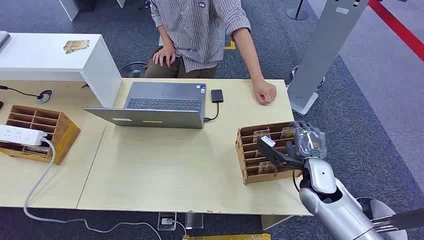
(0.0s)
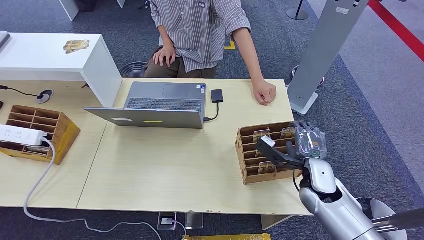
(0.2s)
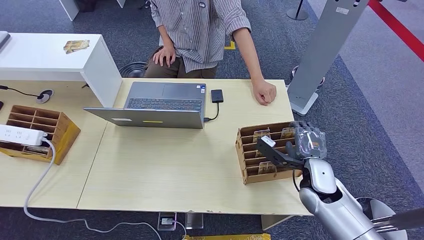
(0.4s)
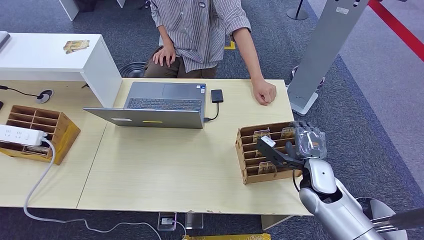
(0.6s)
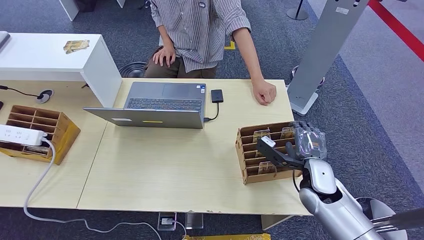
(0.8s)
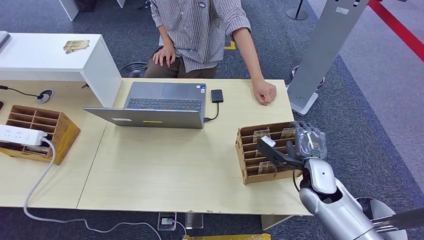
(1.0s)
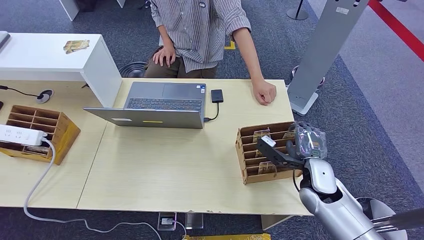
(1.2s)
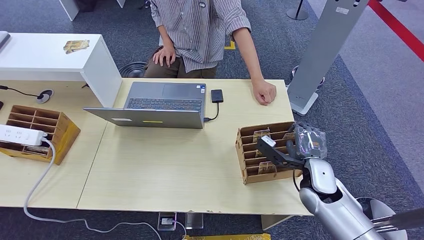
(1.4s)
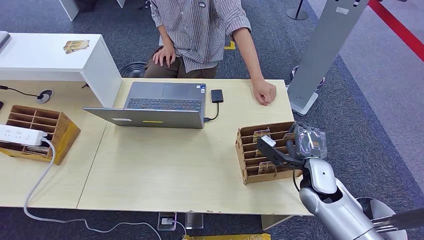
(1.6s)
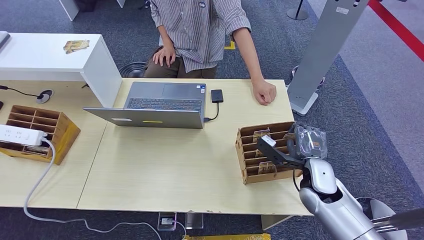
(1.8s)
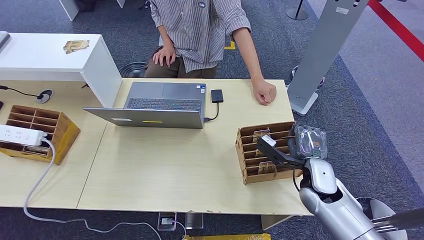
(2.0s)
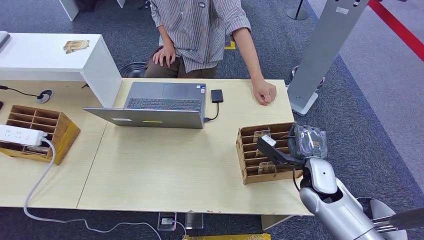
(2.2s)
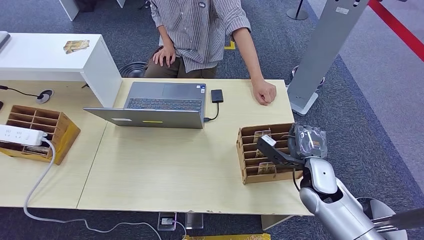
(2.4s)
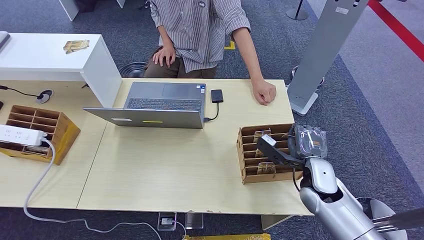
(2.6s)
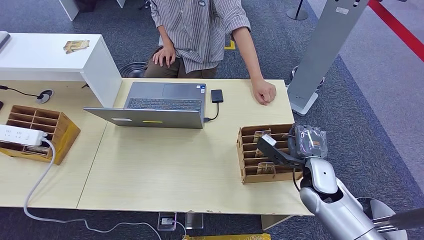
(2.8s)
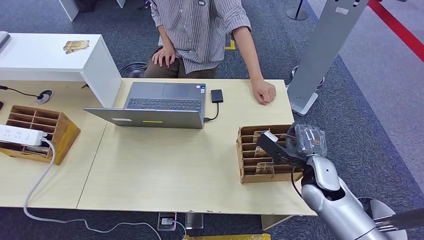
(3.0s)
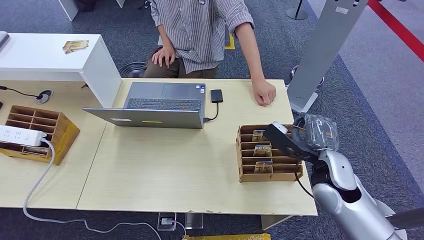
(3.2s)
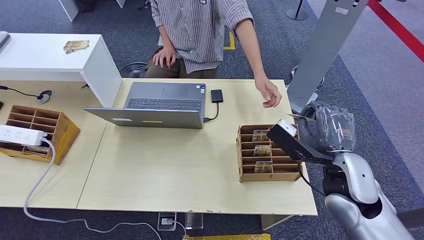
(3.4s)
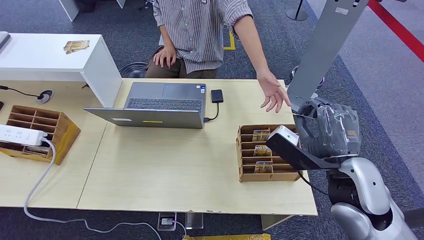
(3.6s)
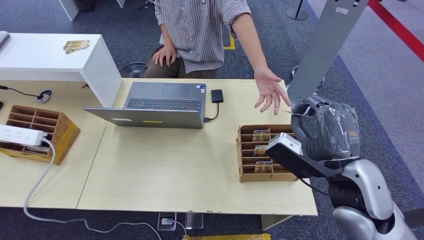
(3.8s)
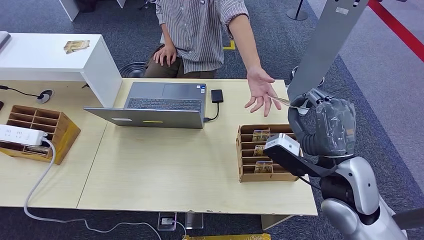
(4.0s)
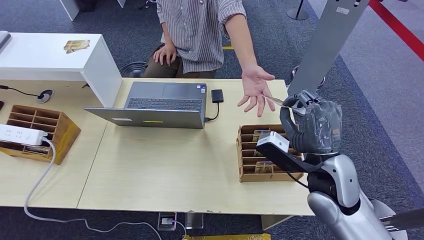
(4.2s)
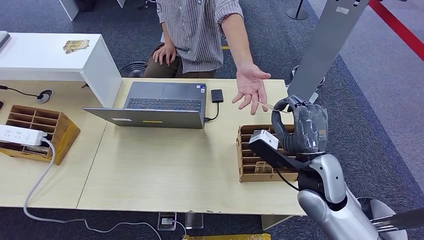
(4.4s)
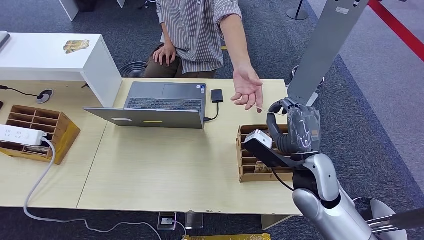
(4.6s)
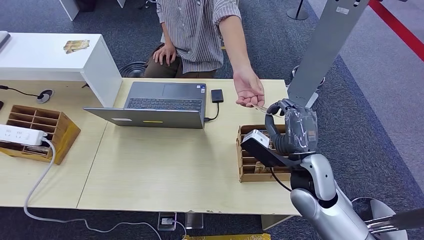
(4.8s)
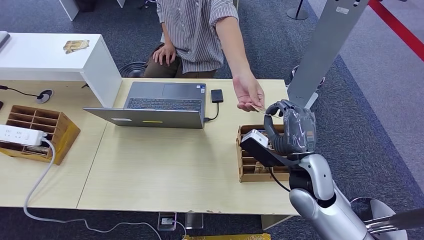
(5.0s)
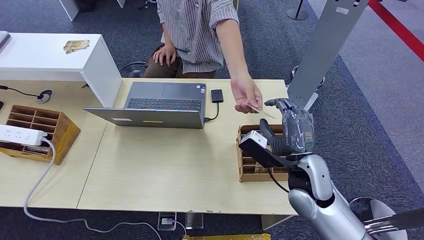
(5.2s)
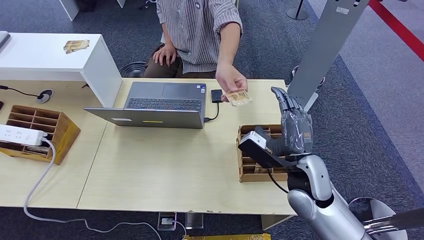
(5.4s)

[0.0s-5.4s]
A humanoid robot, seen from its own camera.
Step, 0.0s to 3.2s: Pick up the room card from the card holder.
Step, 4.0s to 5.4s: Hand the room card to the target.
1.4s to 2.8s: The two hands keep their place.
2.8s to 4.0s: The right hand is displaced upward and backward by roughly 15 cm.
4.0s to 5.4s: The right hand heads downward, covering about 5 cm.

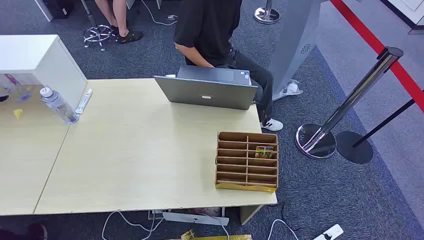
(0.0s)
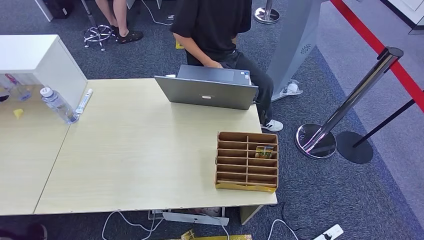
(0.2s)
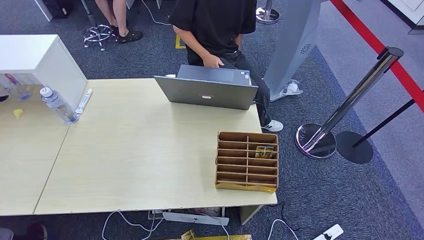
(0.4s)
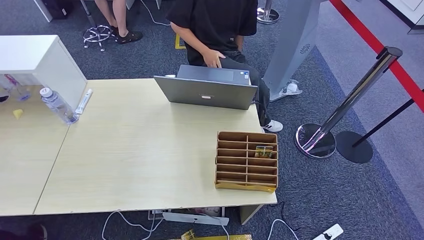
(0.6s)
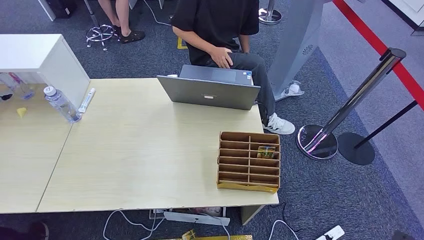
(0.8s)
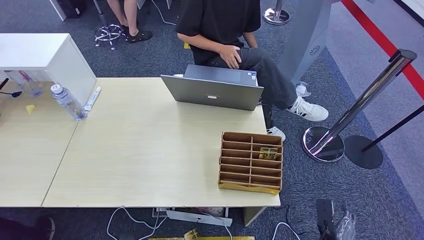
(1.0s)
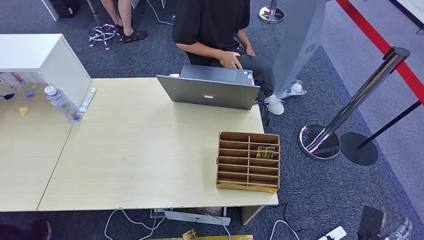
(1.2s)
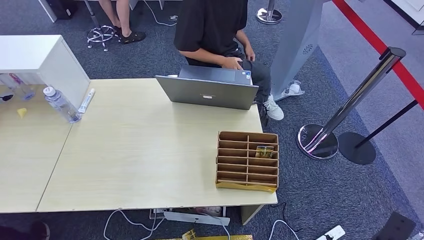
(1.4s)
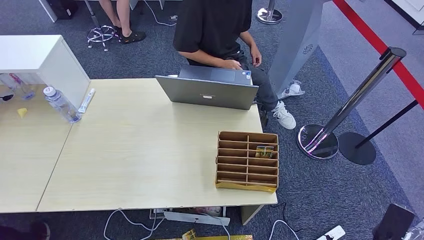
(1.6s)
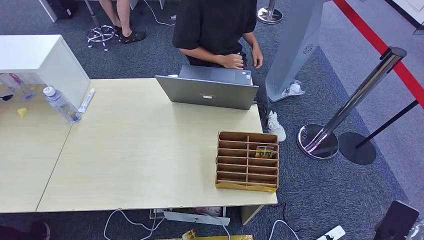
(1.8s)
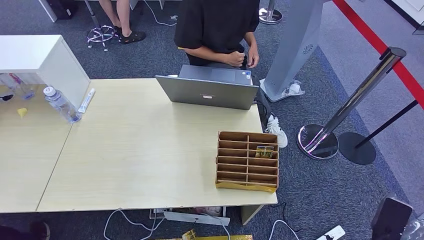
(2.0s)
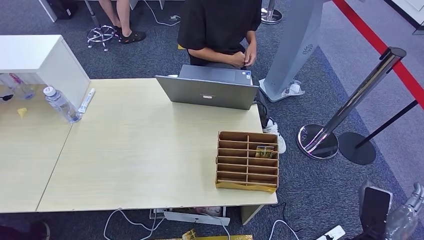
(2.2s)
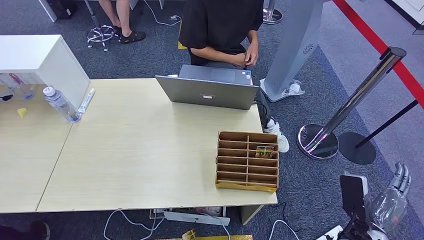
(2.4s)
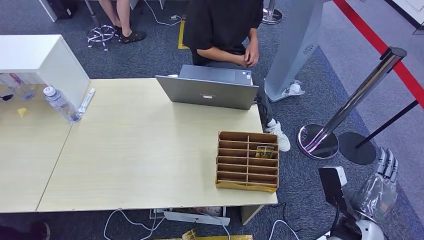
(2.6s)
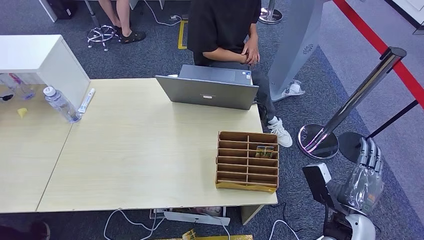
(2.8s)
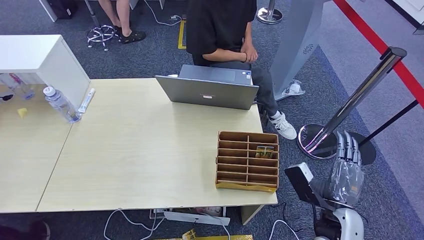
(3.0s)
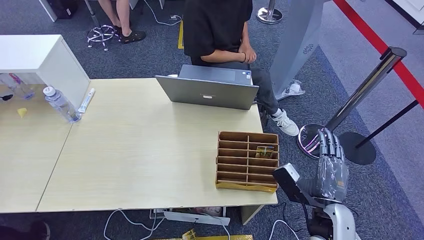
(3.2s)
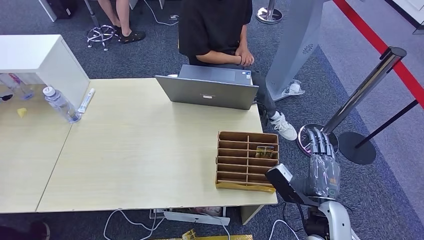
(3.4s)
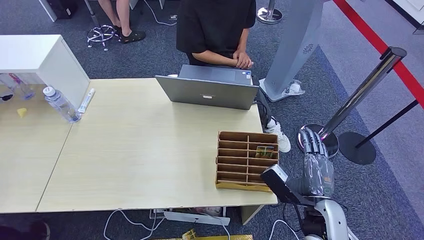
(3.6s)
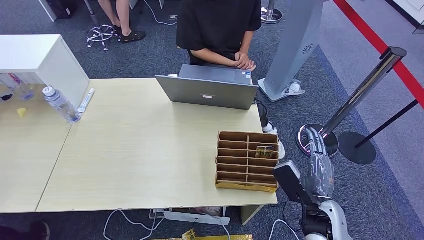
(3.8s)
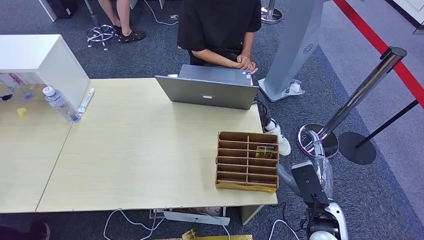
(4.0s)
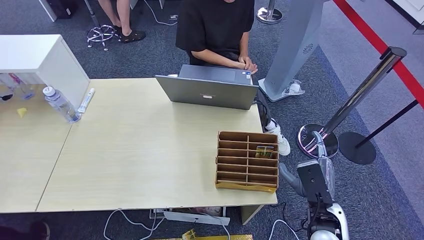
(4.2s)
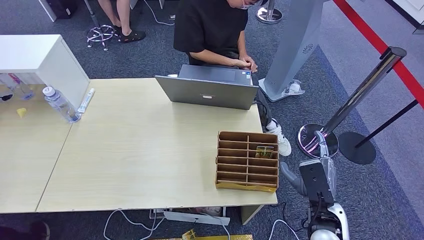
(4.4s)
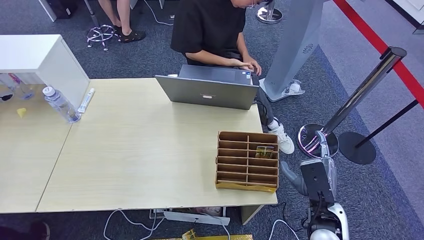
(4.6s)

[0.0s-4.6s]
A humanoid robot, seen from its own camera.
Step, 0.0s to 4.6s: Pick up the room card from the card holder.
1.6s to 3.0s: The right hand is displaced upward, to the left and forward by some 15 cm.

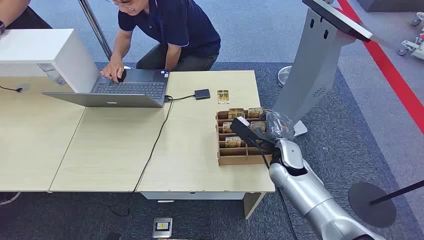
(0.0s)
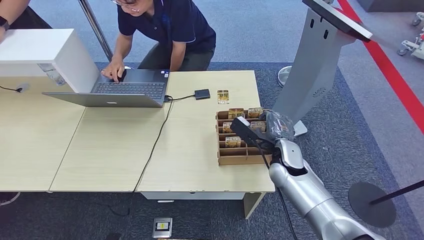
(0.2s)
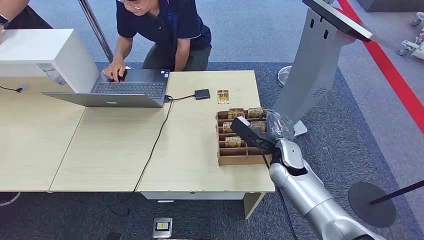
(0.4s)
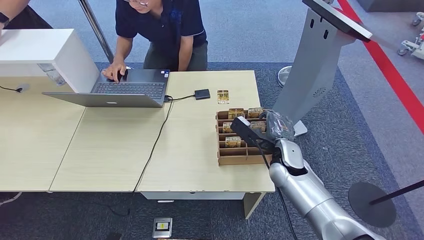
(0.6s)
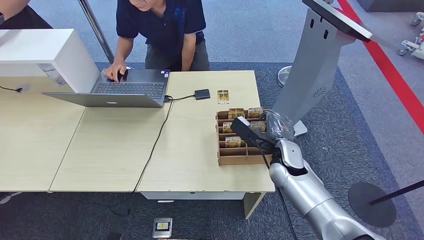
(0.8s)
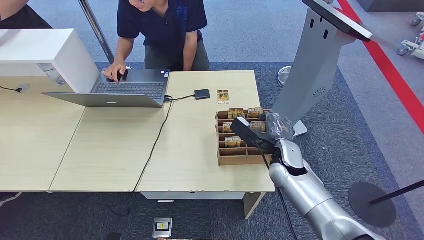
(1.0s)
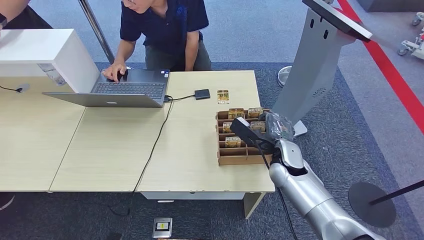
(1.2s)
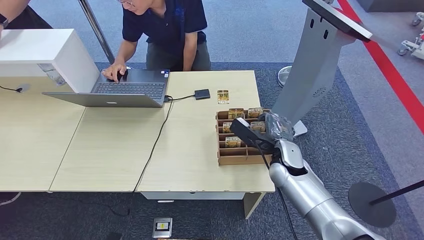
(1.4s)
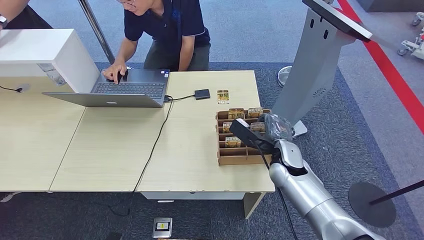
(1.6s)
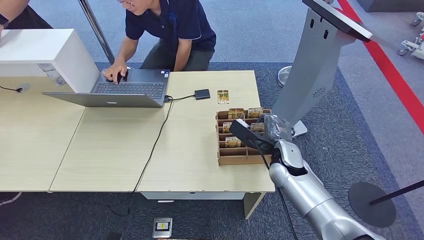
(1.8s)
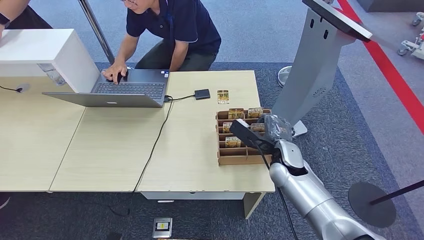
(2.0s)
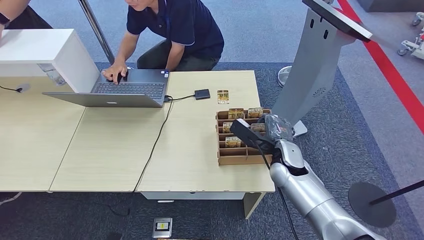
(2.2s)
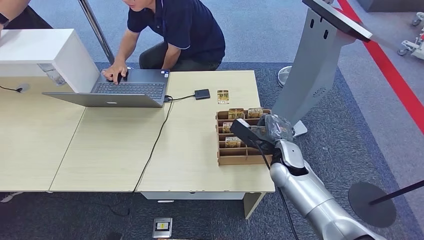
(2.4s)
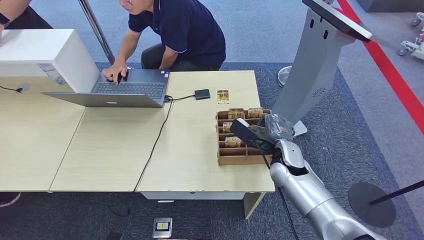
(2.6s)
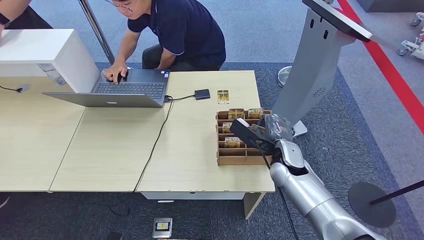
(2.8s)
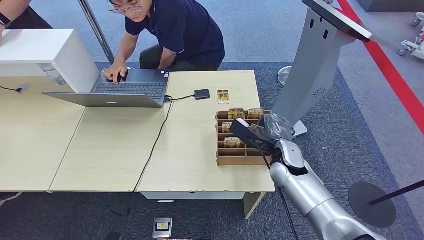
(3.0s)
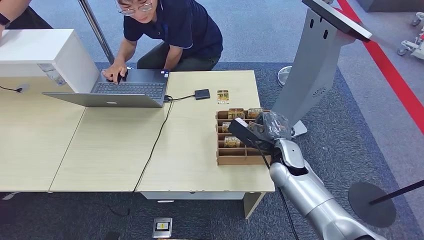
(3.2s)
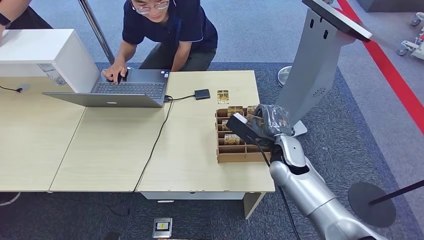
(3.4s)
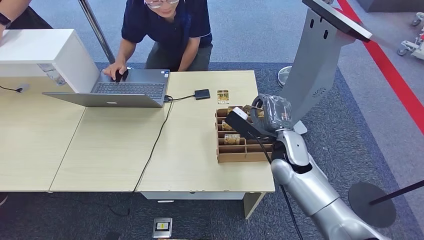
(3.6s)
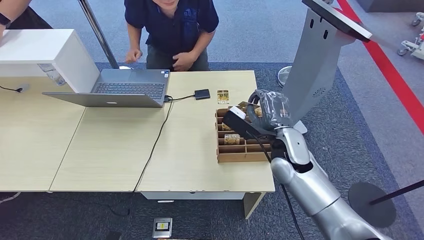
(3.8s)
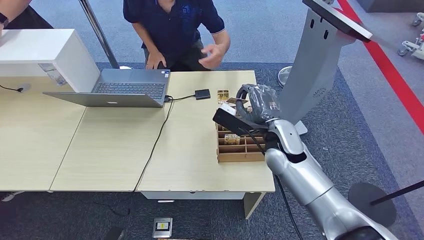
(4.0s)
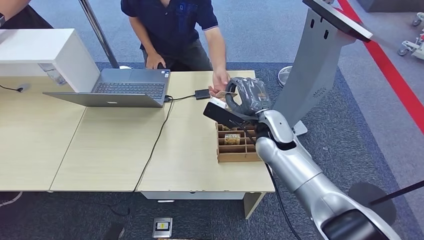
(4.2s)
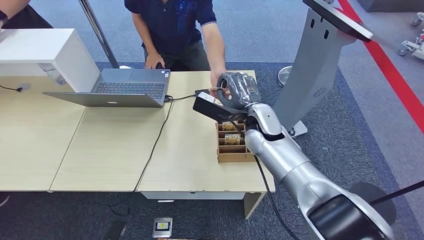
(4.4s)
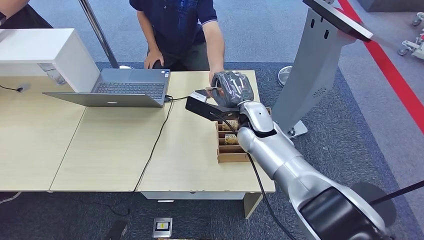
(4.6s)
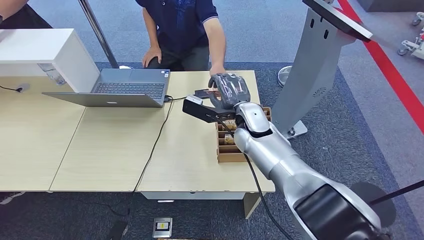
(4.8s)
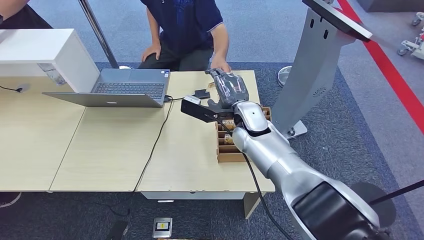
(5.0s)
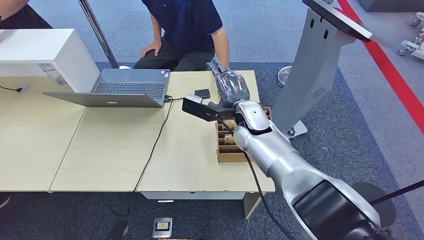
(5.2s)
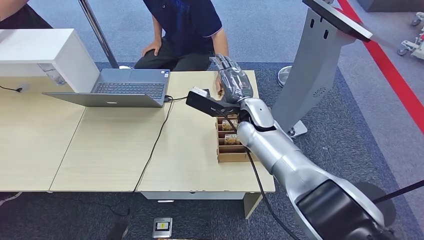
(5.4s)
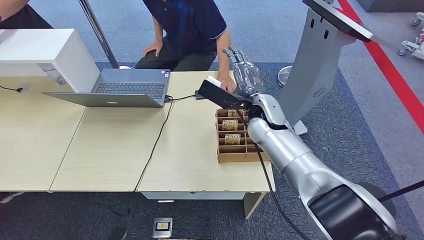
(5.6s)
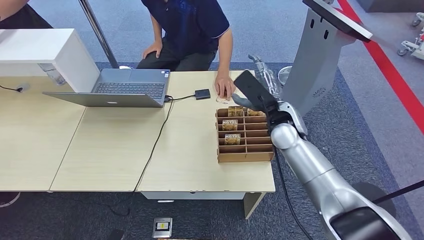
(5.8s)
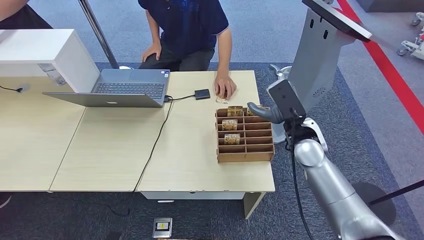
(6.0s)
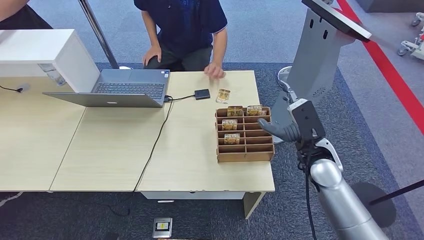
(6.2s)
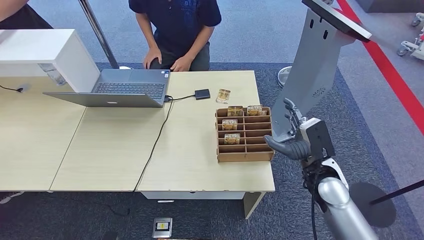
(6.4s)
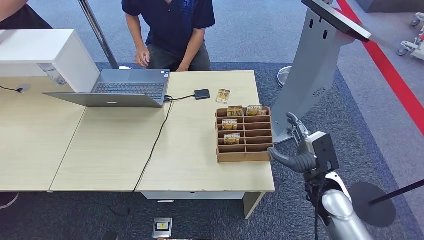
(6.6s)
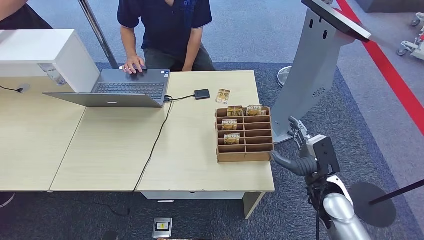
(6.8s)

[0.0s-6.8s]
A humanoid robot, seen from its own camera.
Step, 0.0s to 3.8s: Pick up the room card from the card holder.
Step, 4.0s to 6.8s: Hand the room card to the target.
1.4s to 2.8s: Both hands stay put.
2.8s to 4.0s: The hands stay close to where they were, moving slightly.
4.0s to 5.4s: The right hand moves to the left and forward, about 10 cm.
5.4s to 6.8s: The right hand travels to the right, backward and downward by roughly 25 cm.
